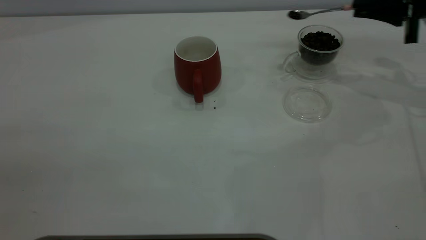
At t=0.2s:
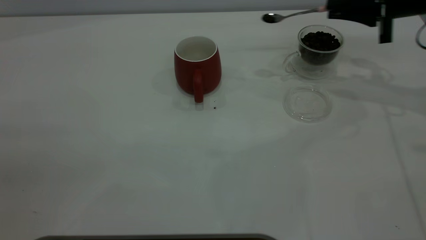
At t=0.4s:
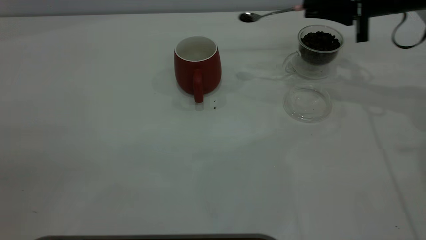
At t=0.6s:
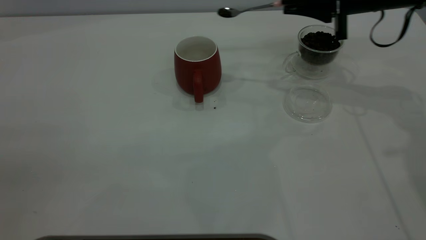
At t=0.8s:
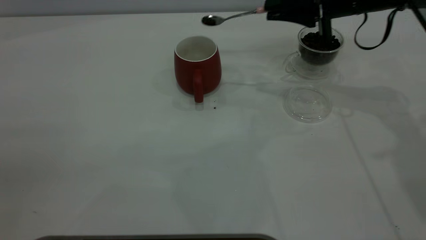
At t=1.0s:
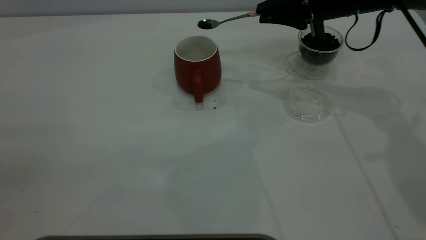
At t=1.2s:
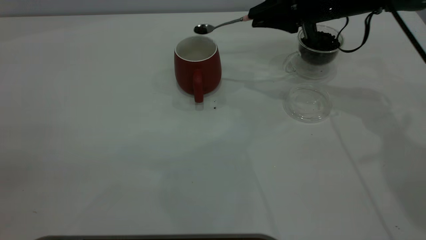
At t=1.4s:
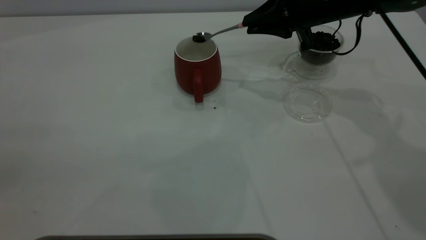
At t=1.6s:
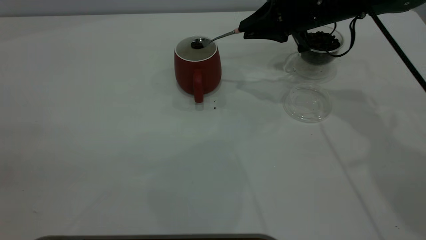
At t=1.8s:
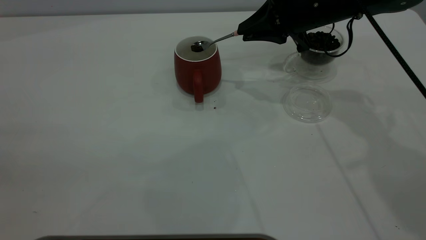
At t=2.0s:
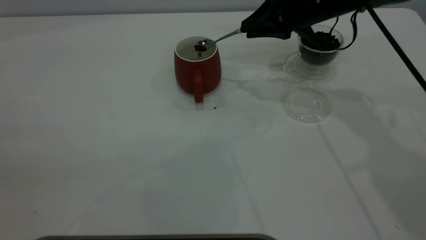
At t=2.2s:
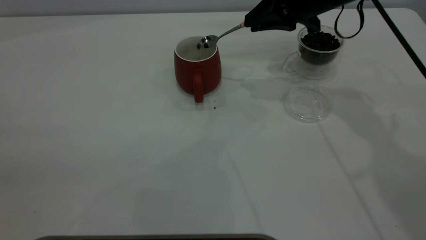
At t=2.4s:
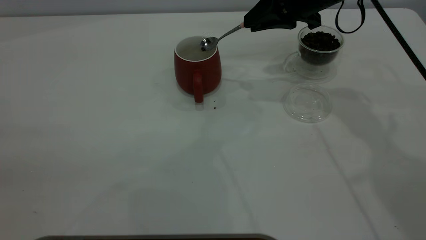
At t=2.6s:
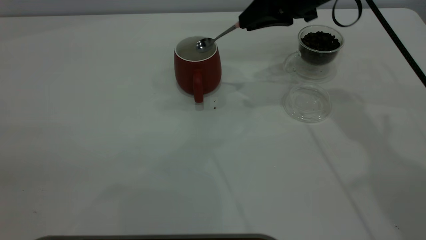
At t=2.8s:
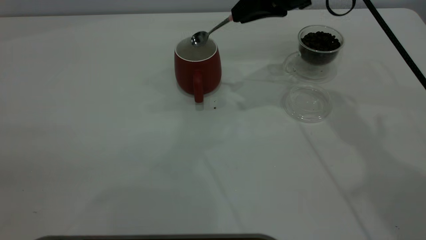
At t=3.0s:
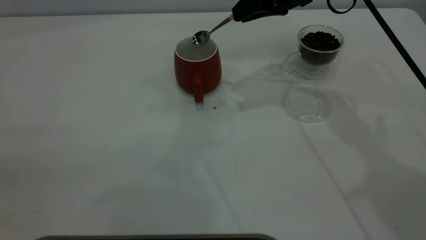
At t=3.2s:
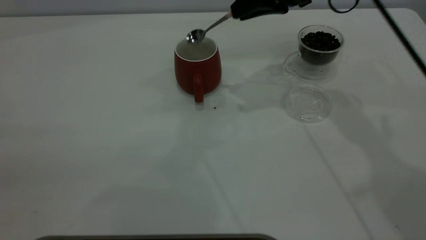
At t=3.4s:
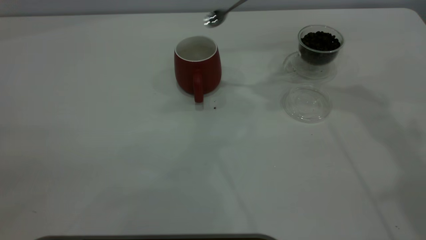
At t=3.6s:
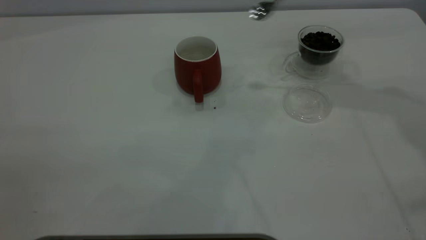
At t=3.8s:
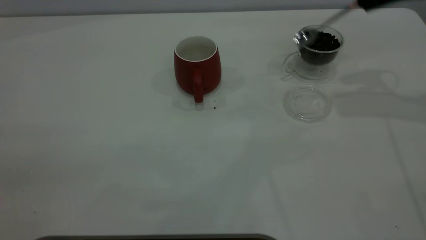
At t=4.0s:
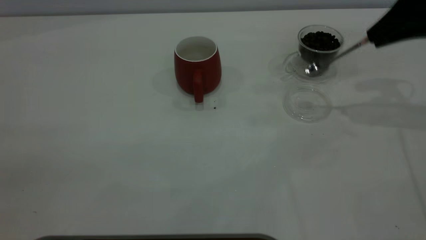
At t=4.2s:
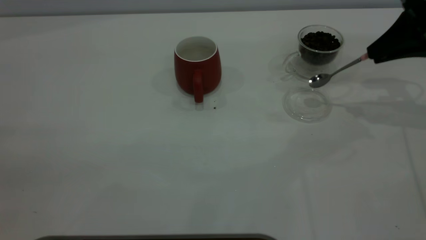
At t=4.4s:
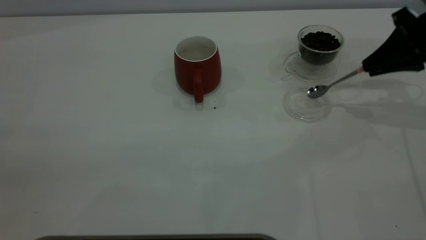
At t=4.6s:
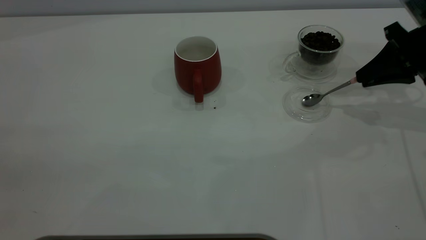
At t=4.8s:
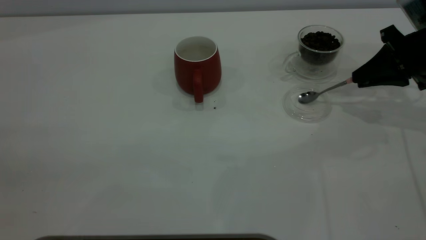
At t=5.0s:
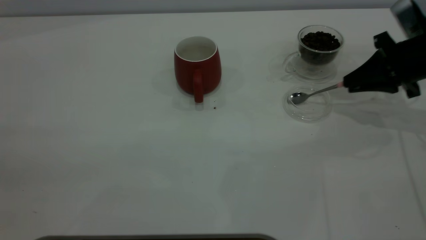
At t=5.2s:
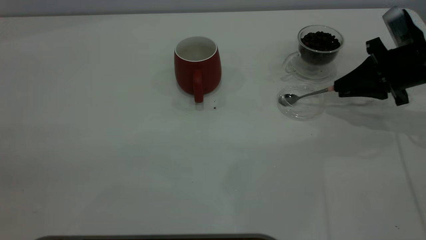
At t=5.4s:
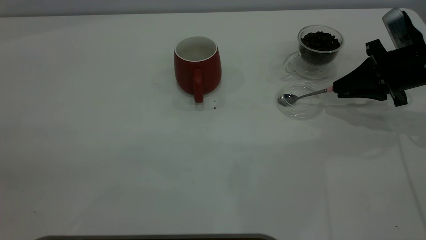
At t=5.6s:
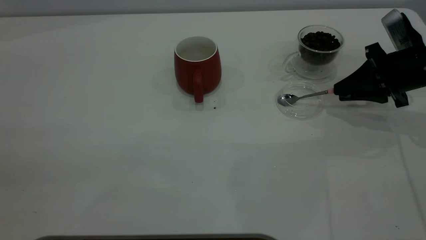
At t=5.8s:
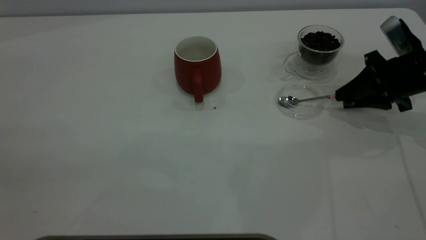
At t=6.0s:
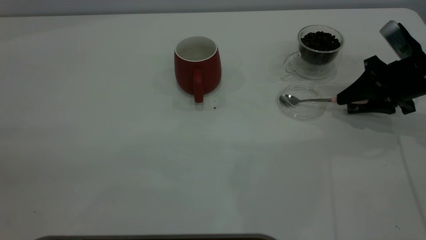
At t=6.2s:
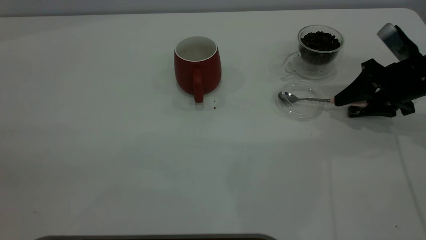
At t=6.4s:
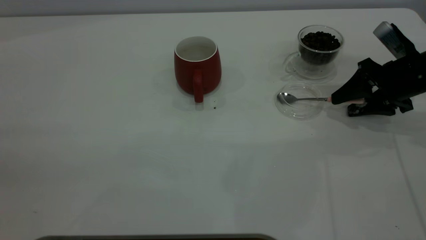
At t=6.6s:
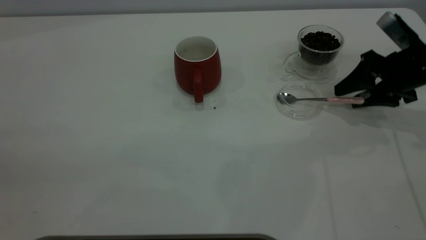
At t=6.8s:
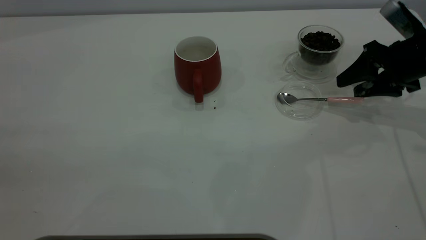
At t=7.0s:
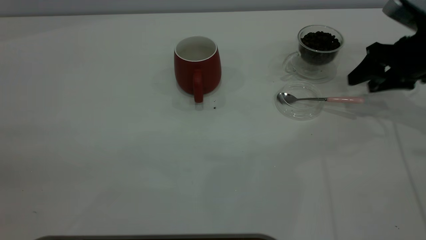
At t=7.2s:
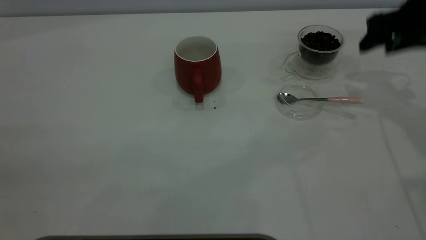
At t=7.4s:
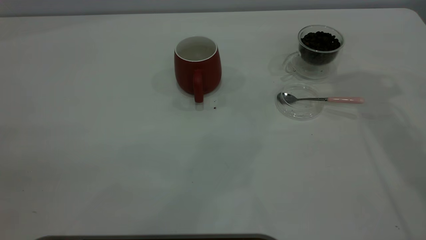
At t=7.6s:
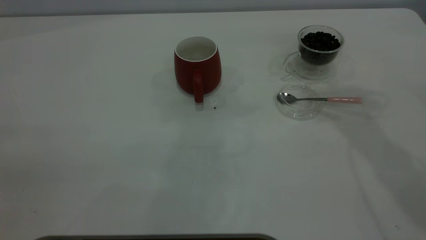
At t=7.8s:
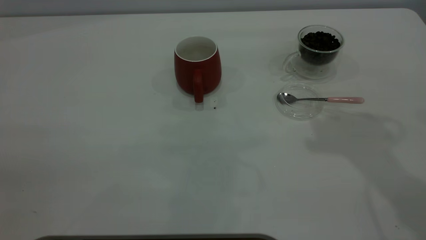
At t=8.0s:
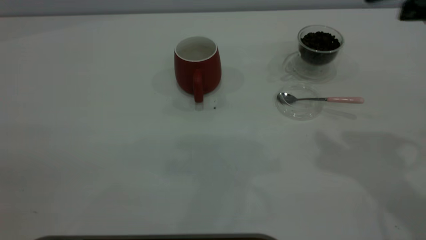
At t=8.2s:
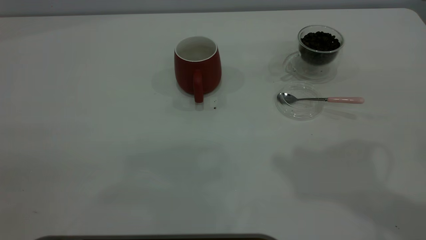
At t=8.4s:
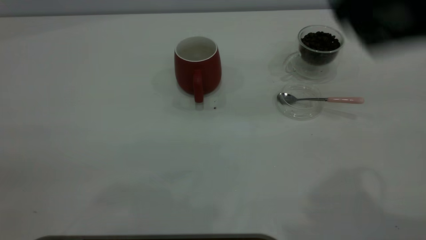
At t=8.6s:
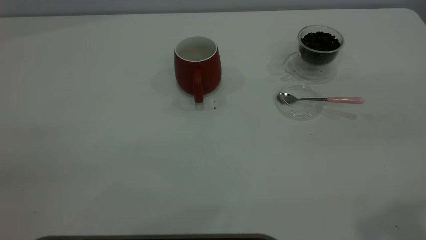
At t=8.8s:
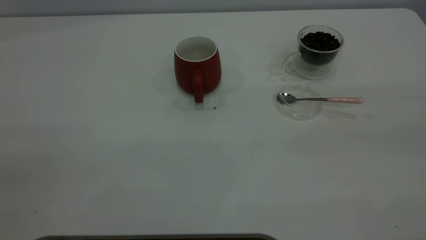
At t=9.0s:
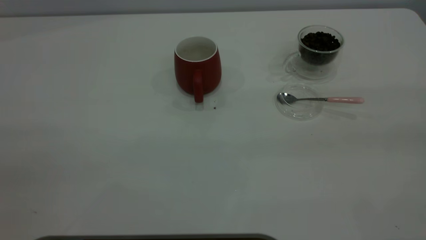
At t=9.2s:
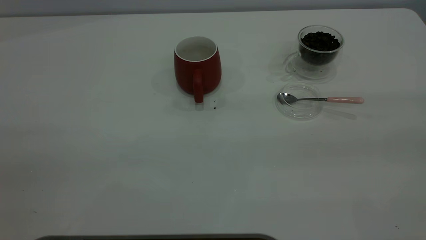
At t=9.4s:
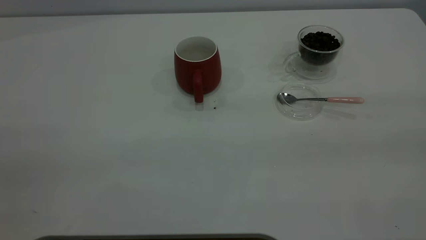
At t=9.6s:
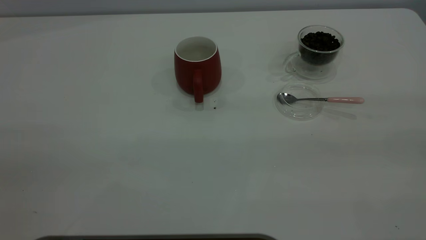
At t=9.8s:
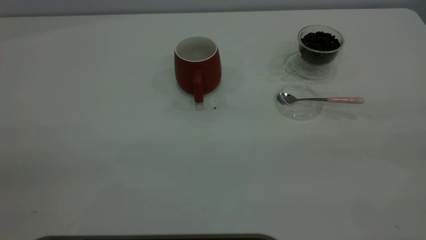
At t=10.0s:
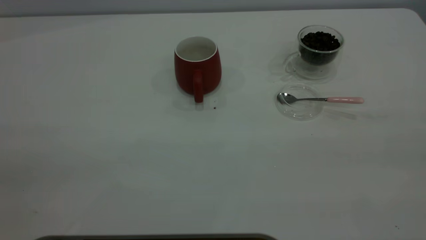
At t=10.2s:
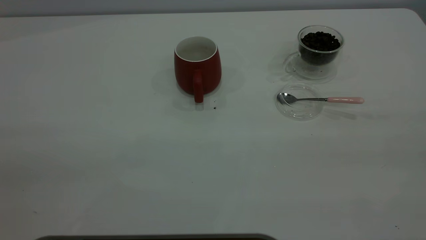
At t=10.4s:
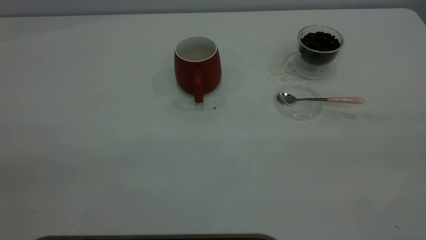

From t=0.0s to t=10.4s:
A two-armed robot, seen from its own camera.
Task of the whole recording: the left gripper place the red cup in the center of the table, the right gripper take the pink spoon from the cup lid and scoop out the coffee beans from the coffee cup and put them into the red cup, the right gripper put the spoon back into the cup lid.
Step, from t=0.0s to t=3.2s: Scoop a spoonful of beans into the cup.
Step, from t=3.4s to t=6.8s: Place the spoon back in its original place.
From t=0.0s to t=1.4s: The right gripper heads to the left, covering approximately 15 cm.
From t=1.4s to t=3.0s: The right gripper shifts approximately 5 cm upward.
From t=3.0s to t=4.4s: The right gripper travels to the right by roughly 20 cm.
From t=4.4s to t=6.0s: The right gripper heads downward, covering roughly 10 cm, and opens up.
From t=6.0s to t=7.4s: The right gripper is displaced upward by about 20 cm, and opens.

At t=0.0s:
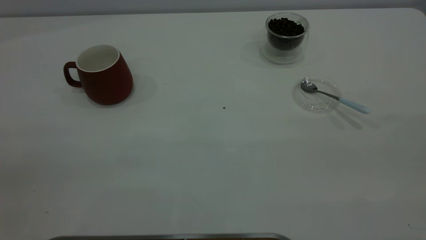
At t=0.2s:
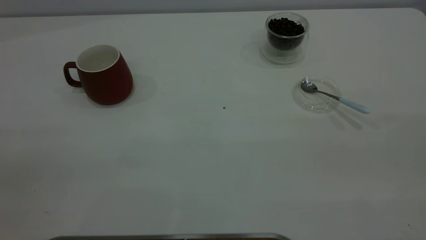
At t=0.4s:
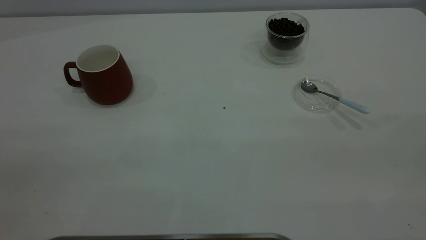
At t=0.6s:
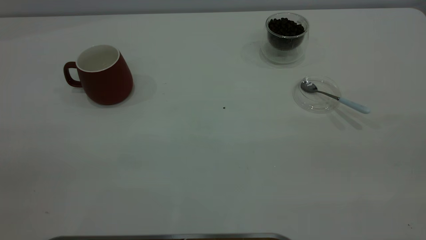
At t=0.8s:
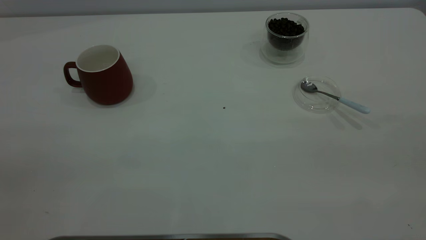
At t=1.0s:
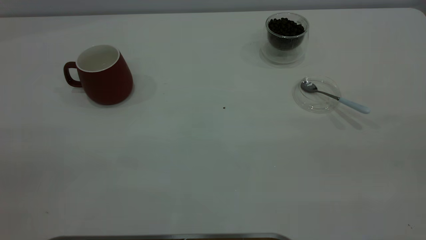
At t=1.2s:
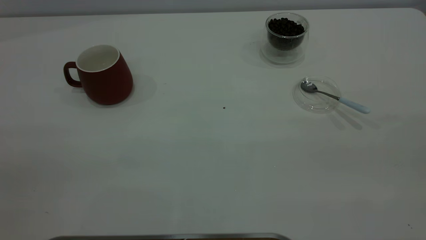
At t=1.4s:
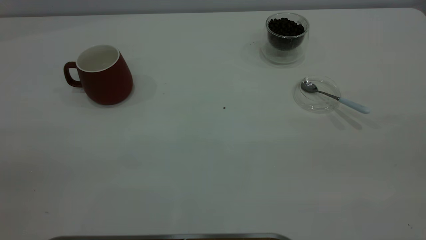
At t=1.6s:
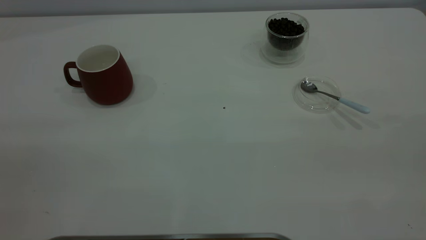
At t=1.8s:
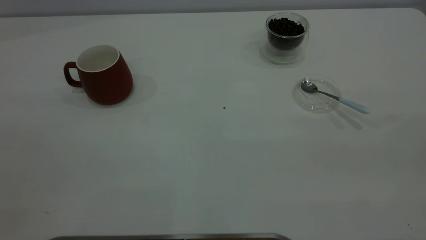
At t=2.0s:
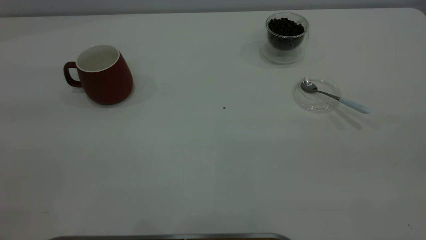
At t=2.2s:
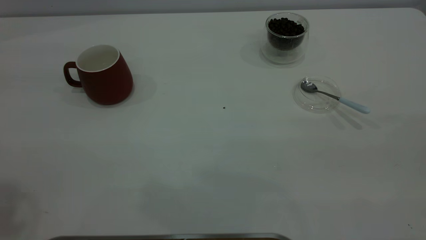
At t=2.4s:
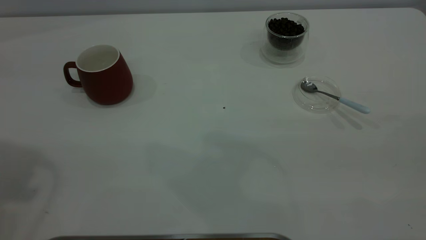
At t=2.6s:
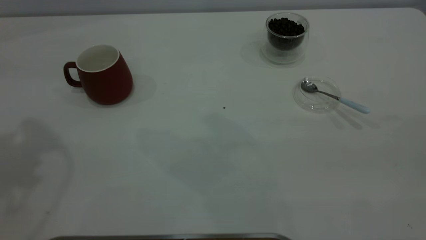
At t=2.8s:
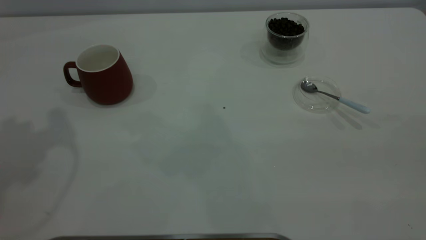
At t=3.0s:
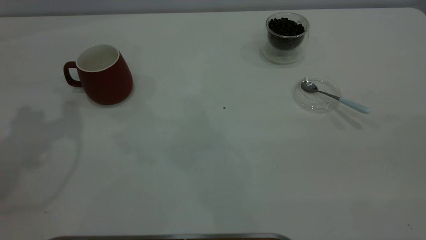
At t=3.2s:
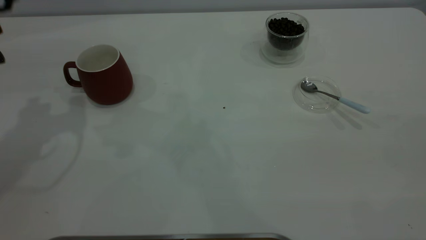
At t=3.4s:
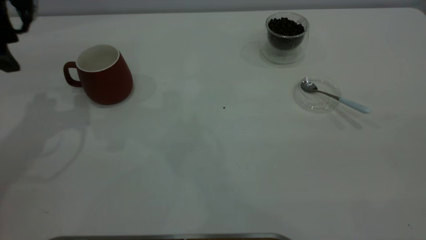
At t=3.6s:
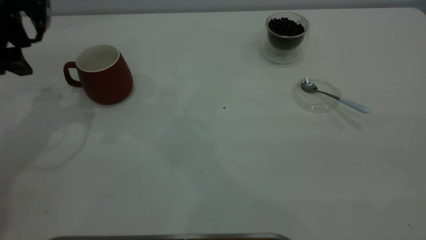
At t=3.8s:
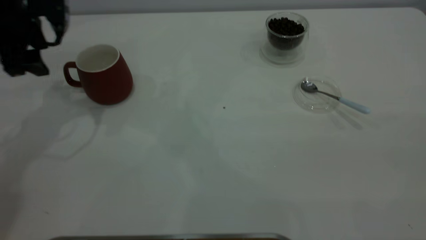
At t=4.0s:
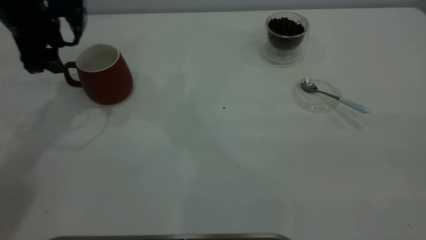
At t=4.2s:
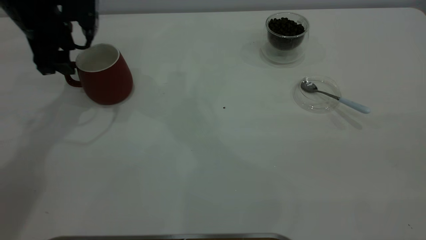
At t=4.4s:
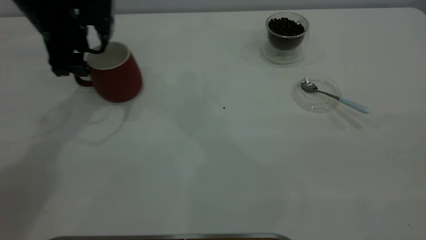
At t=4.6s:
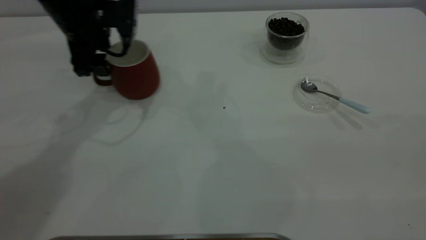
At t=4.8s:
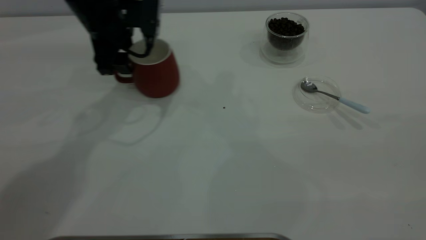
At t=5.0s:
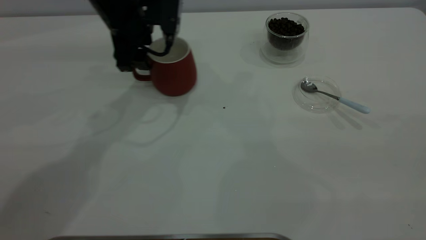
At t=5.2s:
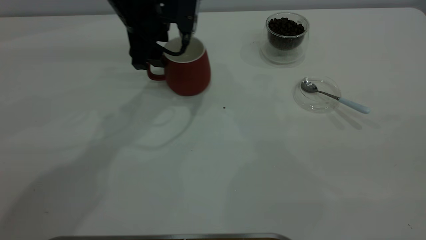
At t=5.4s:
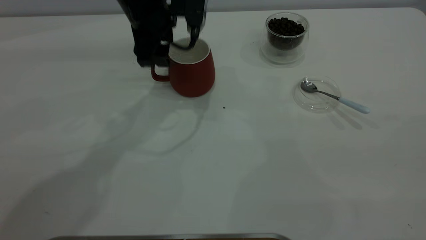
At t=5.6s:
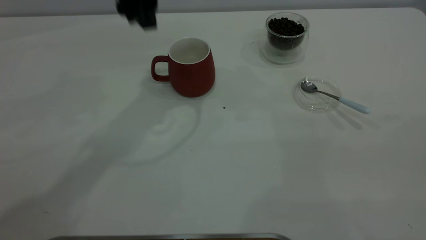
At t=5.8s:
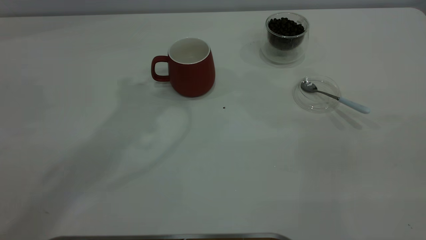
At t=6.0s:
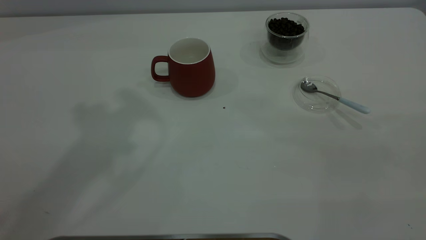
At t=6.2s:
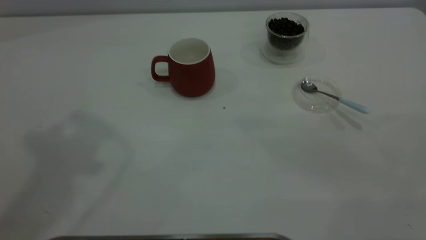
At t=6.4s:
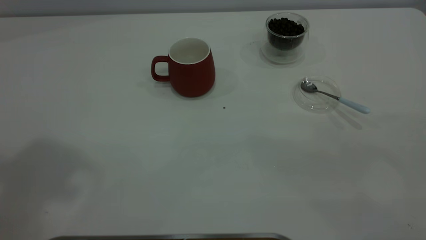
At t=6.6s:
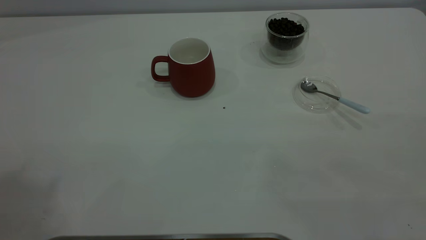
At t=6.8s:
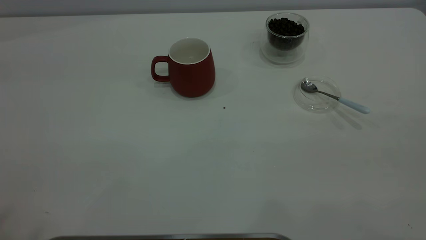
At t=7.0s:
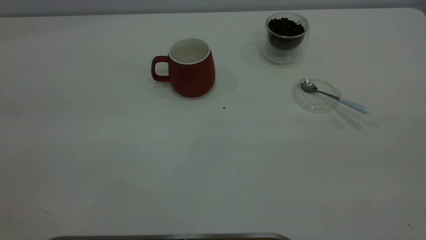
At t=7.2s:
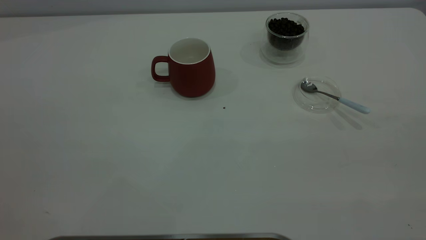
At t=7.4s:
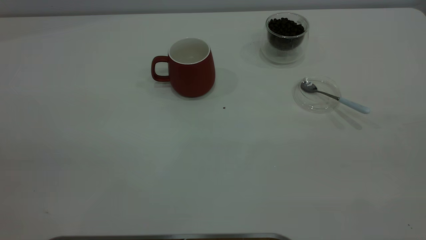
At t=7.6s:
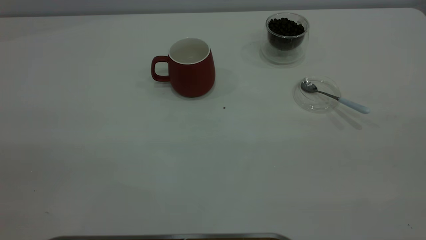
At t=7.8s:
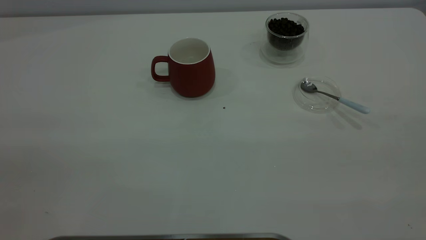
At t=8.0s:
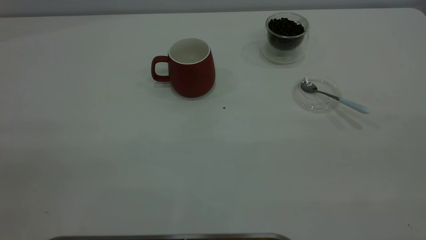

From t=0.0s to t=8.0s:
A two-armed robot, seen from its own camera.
Task of the whole recording: the left gripper place the red cup in the center of the table, the right gripper take the blue spoon from the cup lid and scoop out the coffee beans from the coffee cup and put them into the red cup, the right gripper put the spoon back into the cup lid.
Step, from t=0.0s to t=5.4s: Move the cup to the center of view.
From t=3.2s to t=4.8s: The left gripper shifts roughly 20 cm to the right, downward and forward.
From t=4.8s to t=6.4s: The left gripper travels upward and backward by approximately 50 cm.
